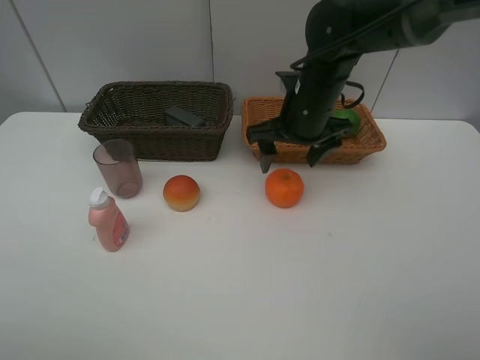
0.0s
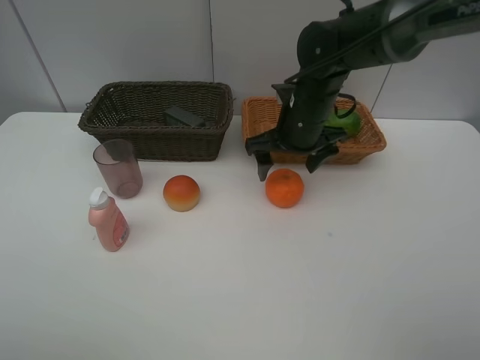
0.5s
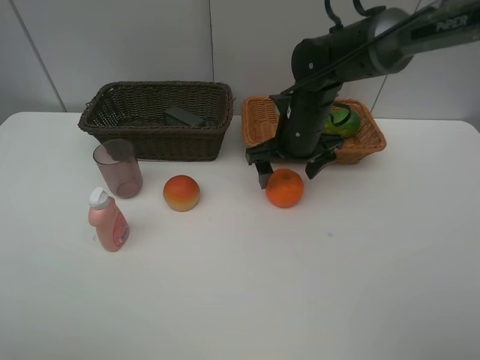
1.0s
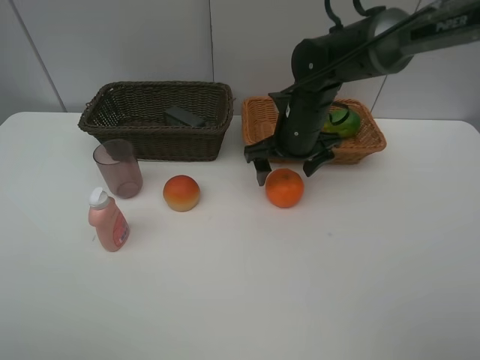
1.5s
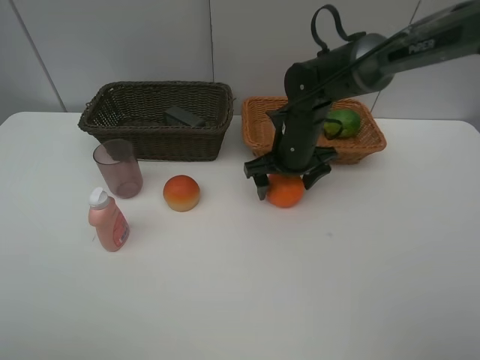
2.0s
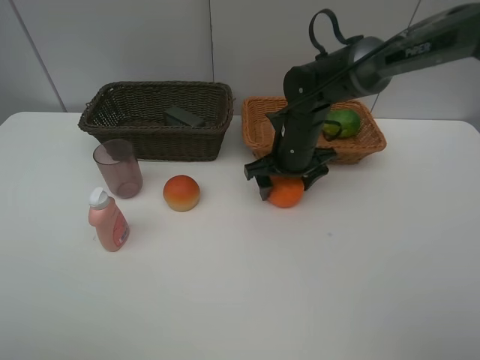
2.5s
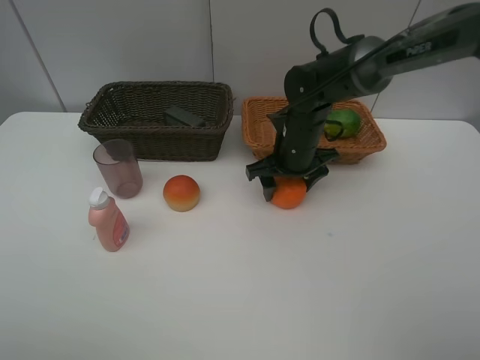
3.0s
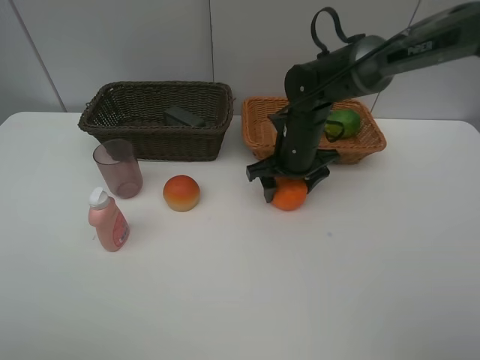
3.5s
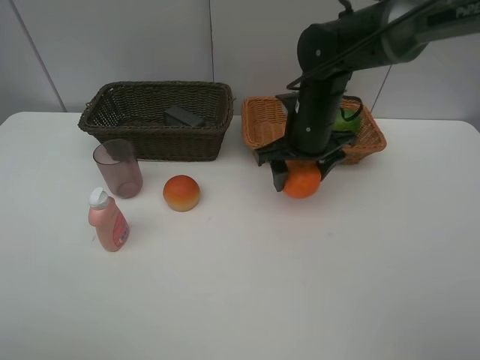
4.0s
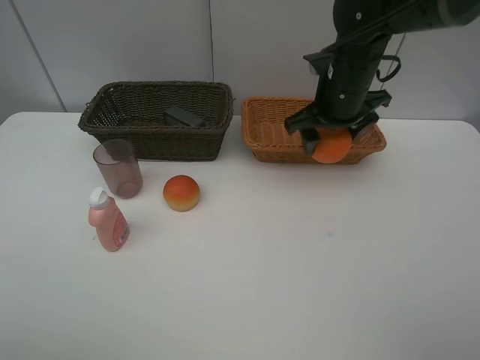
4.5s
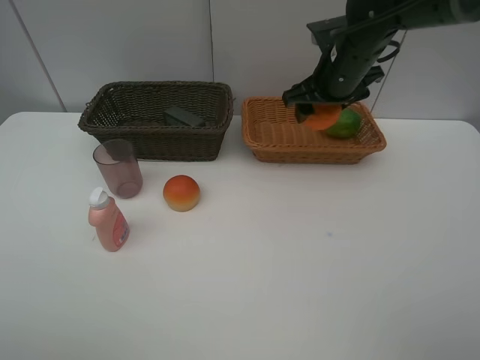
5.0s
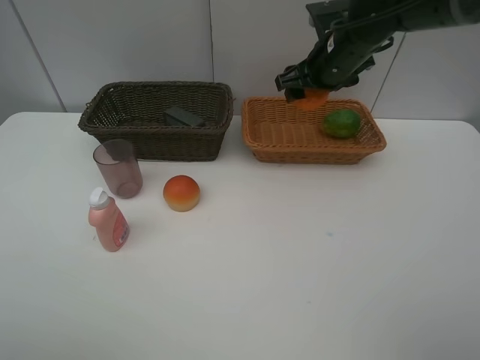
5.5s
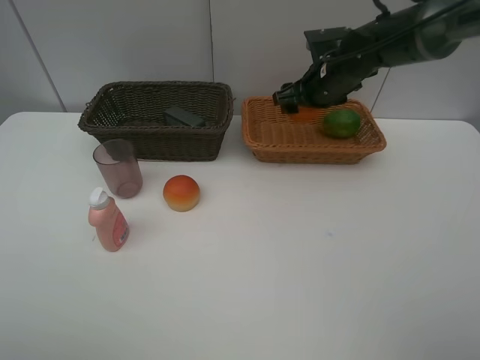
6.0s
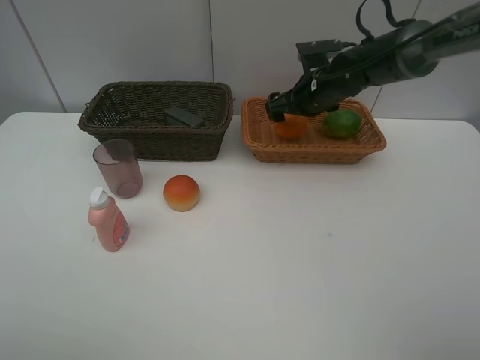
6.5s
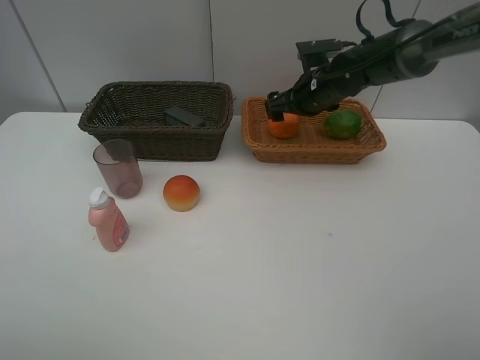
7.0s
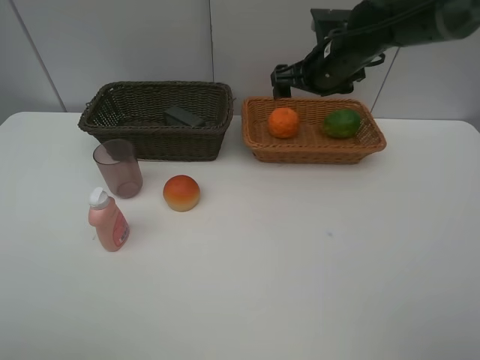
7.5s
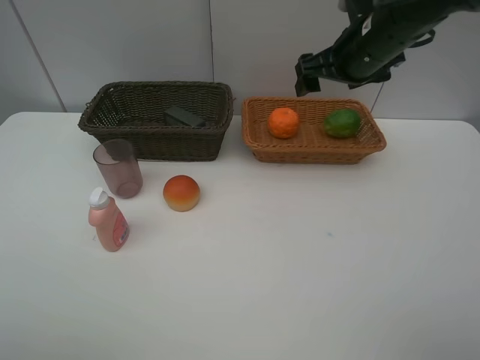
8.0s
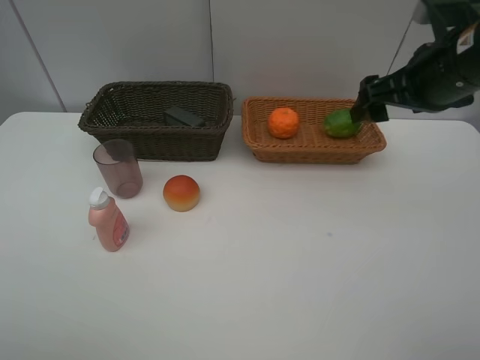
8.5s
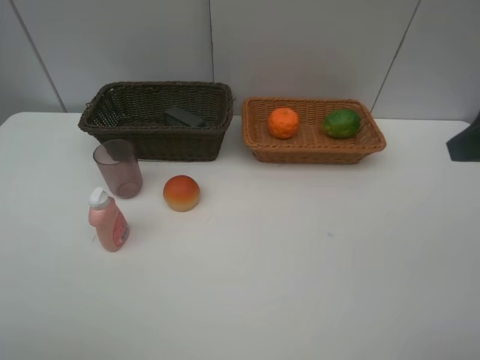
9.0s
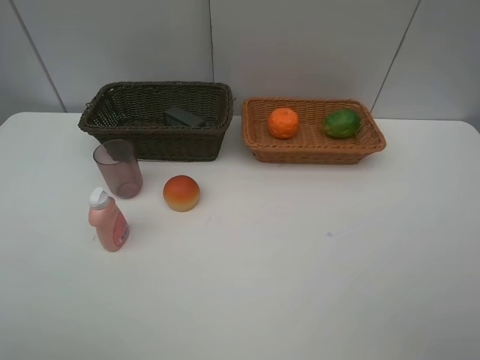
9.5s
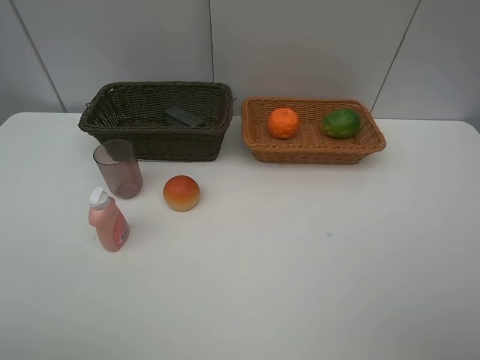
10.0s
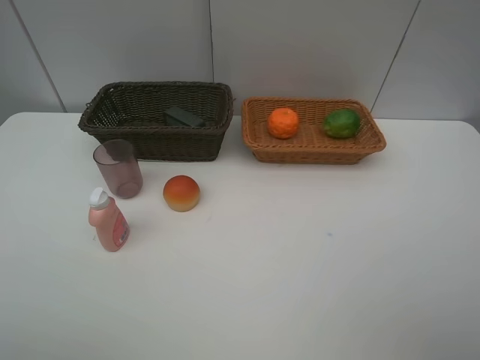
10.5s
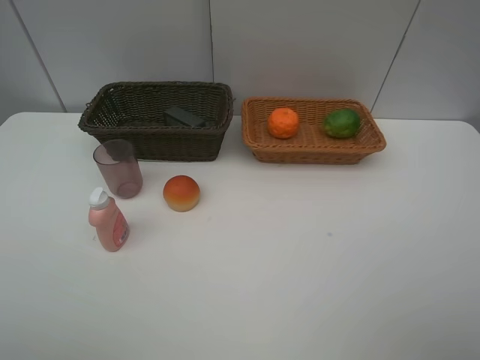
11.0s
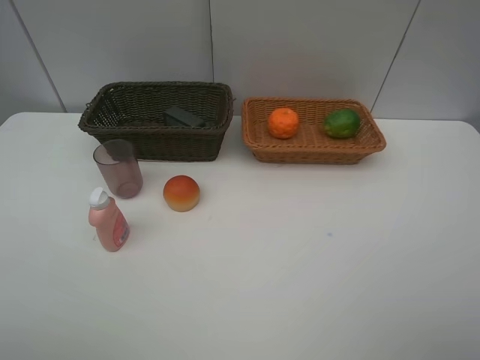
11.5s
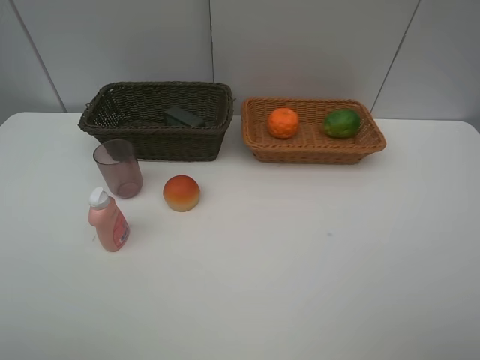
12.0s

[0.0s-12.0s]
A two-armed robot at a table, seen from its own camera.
Task of the whole recording: place multiple objects separately in different baskets.
0.0s to 2.0s: The right gripper heads downward, covering some 5 cm.
2.0s to 4.0s: The right gripper heads upward, covering about 5 cm.
4.0s to 6.0s: The right gripper travels forward by roughly 10 cm.
6.0s to 8.0s: The right gripper is displaced upward and backward by approximately 10 cm, and opens its fingers.
8.0s to 10.0s: The right gripper heads backward, covering about 30 cm.

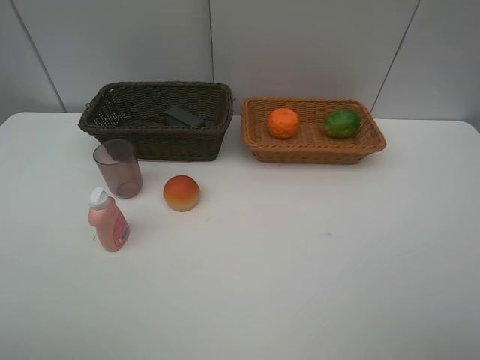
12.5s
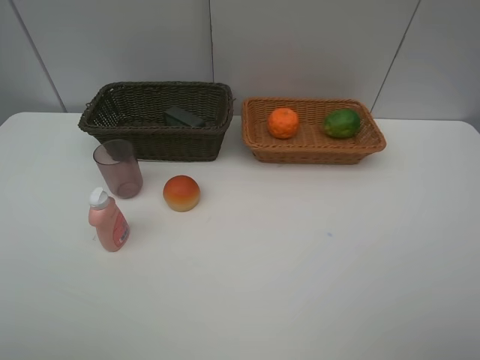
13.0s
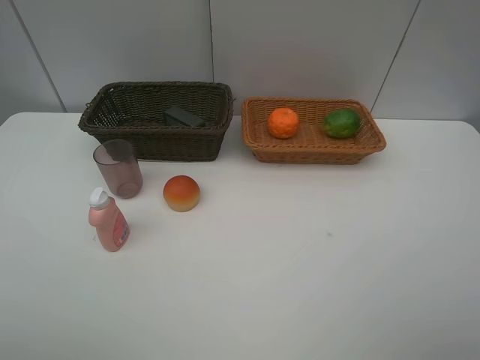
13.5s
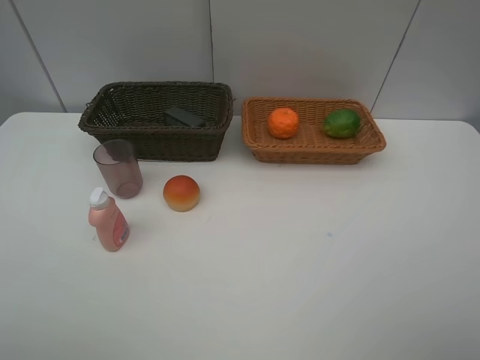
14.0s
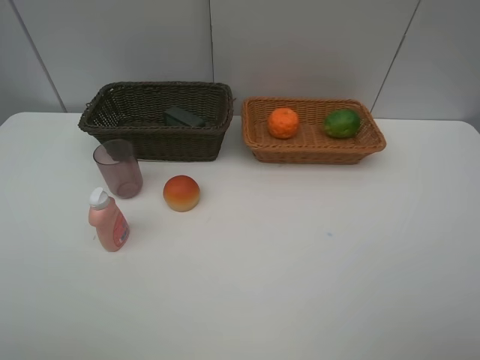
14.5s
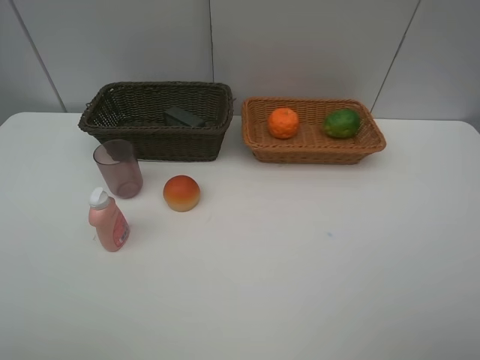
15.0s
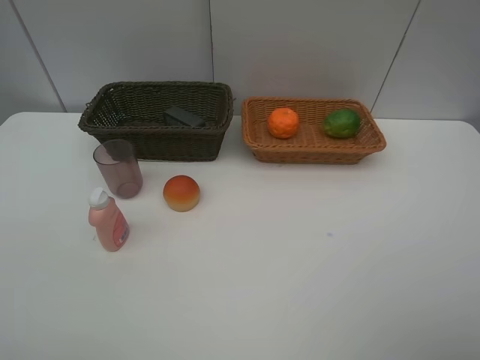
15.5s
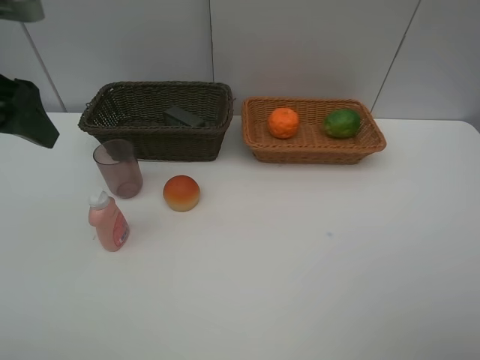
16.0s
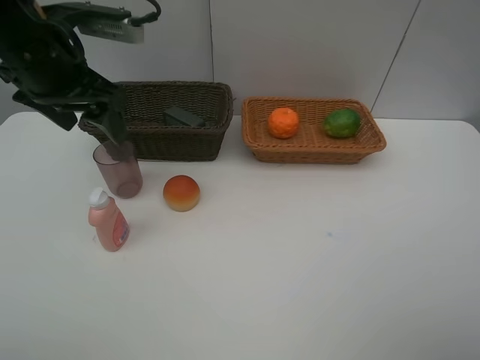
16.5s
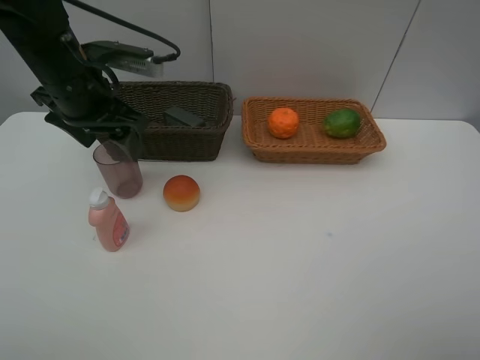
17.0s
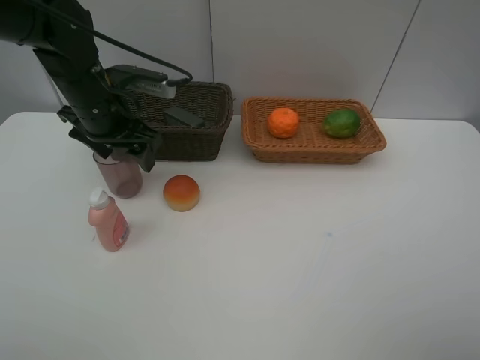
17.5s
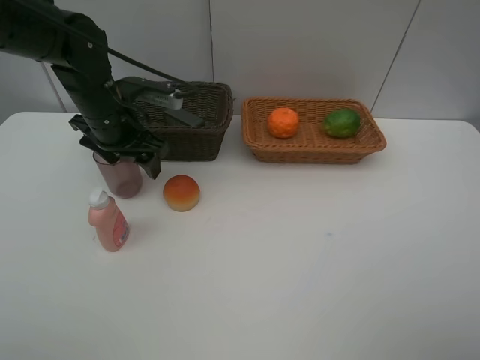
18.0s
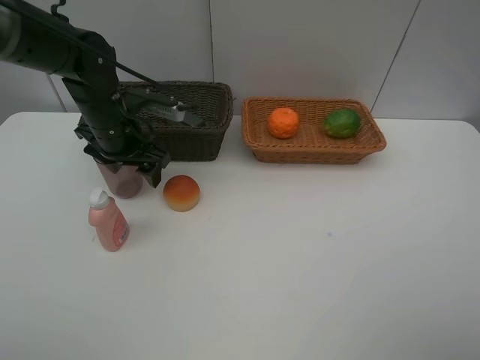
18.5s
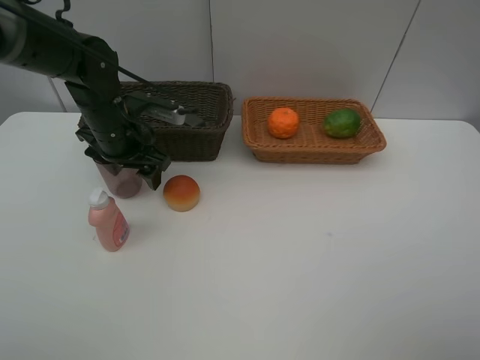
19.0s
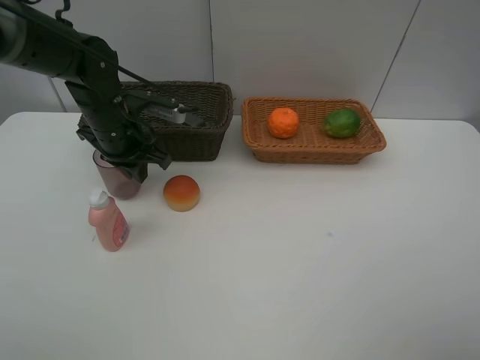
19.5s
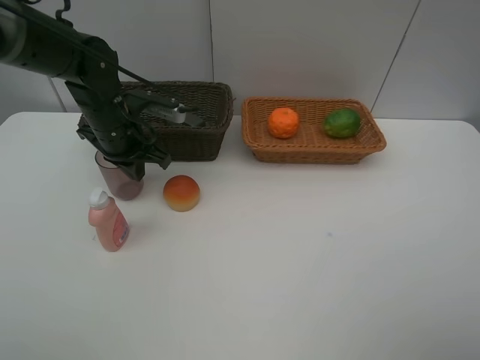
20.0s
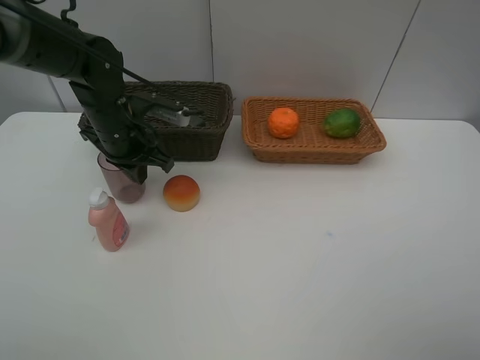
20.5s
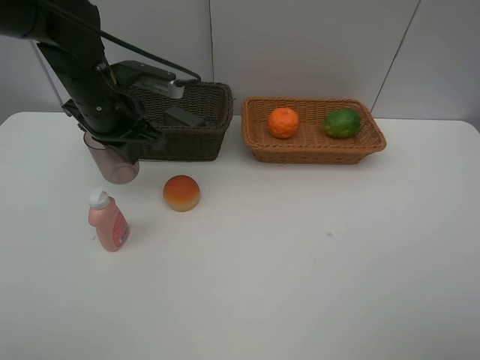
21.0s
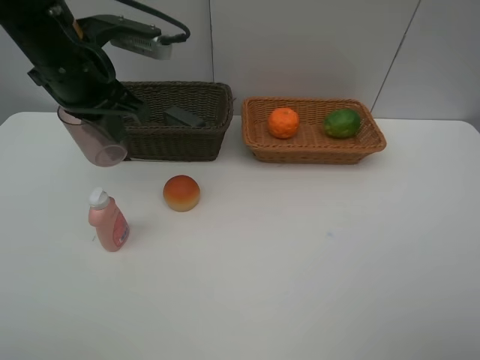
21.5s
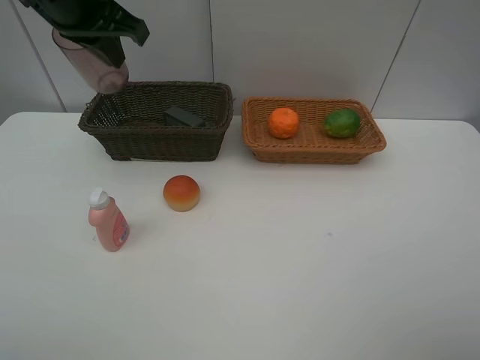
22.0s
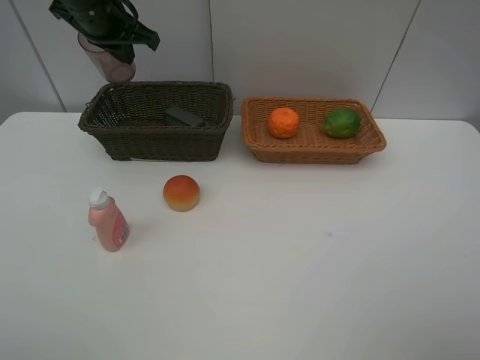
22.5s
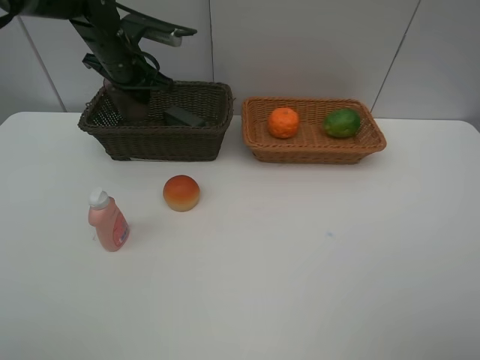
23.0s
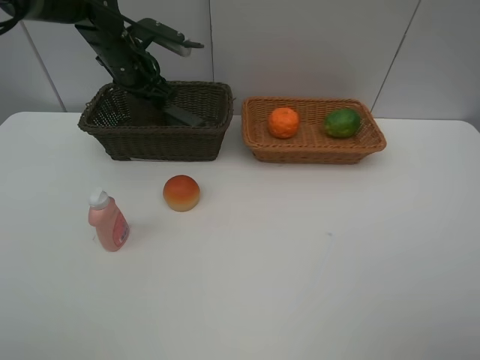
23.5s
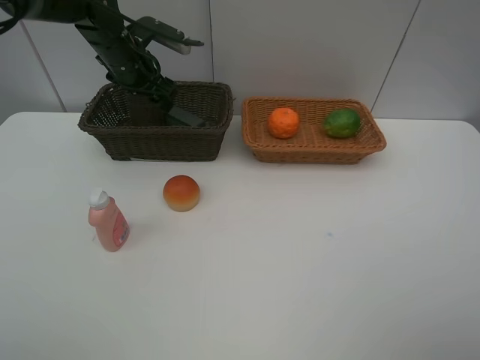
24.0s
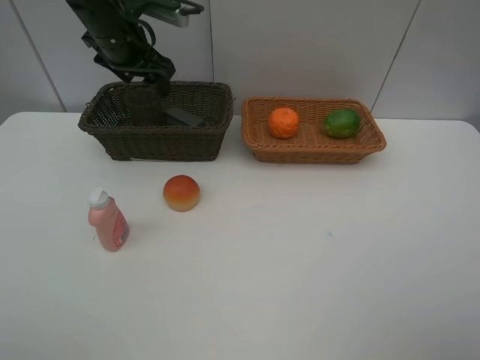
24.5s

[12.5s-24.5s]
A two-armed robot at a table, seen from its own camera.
Task of the whole recording: place multiple objects separately in different baskets.
12.5s to 14.5s: Both grippers stay about where they are.
14.5s to 16.5s: The left gripper shifts some 30 cm forward.
16.5s to 18.5s: The left gripper is displaced downward and forward by some 15 cm.
18.5s to 20.5s: The left gripper closes up.
20.5s to 22.5s: The left gripper moves upward and forward, approximately 15 cm.
22.5s to 24.5s: The left gripper reaches roughly 10 cm downward, then returns, and opens.

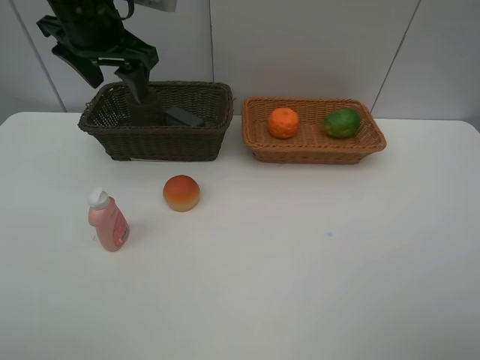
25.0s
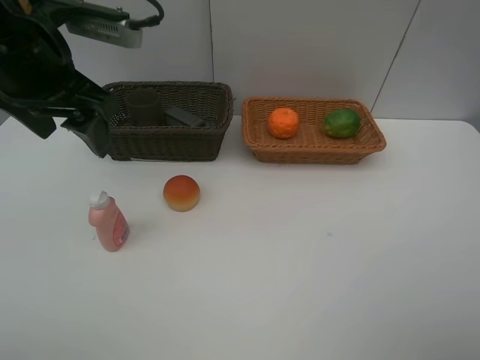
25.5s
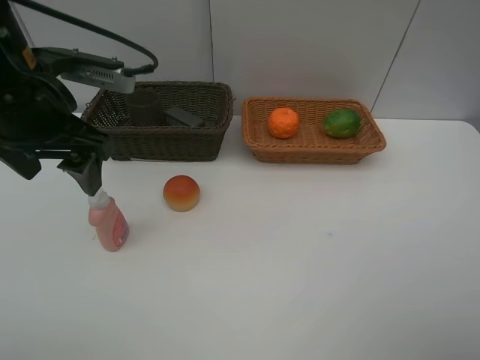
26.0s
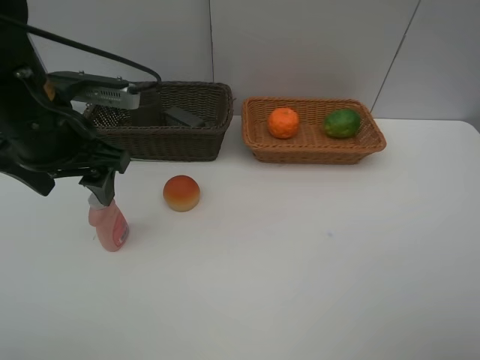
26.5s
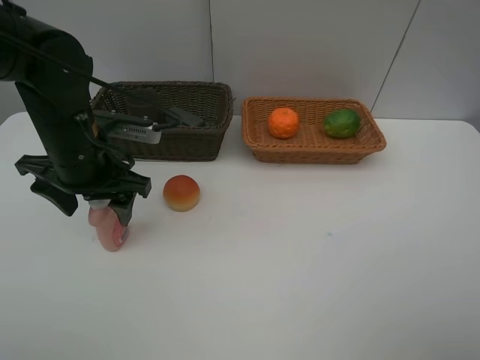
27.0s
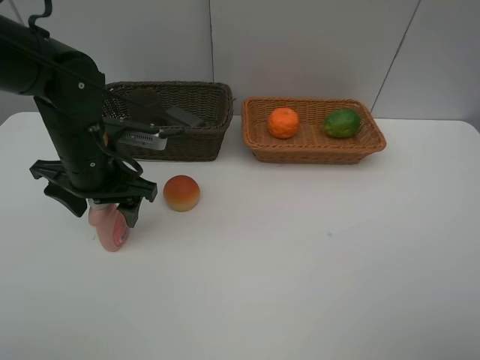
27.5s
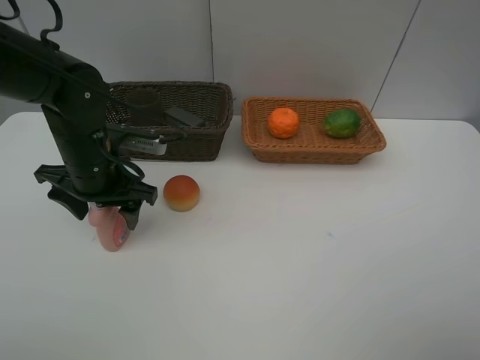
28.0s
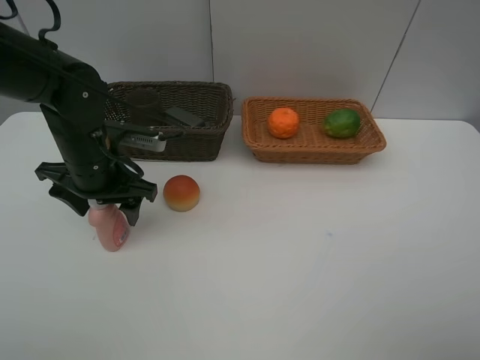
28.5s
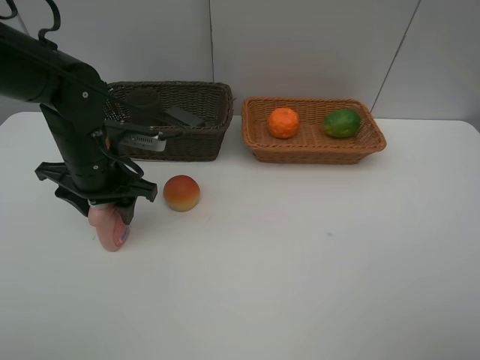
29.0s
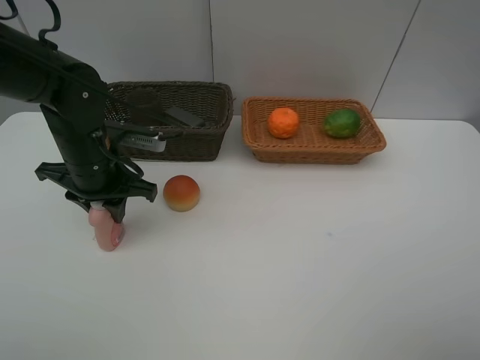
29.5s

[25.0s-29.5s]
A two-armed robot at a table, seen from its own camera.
Task of the whole recording: place multiple objects separately in different baskets.
25.0s to 27.0s: The left gripper heads downward and backward, covering about 15 cm.
27.0s to 29.5s: The left gripper closes up.
